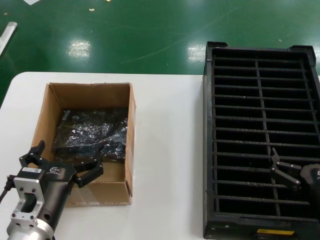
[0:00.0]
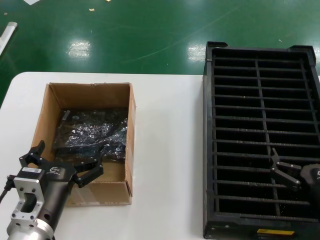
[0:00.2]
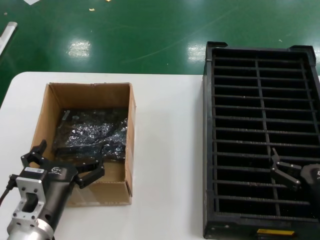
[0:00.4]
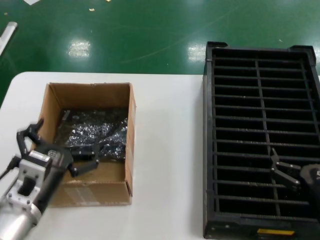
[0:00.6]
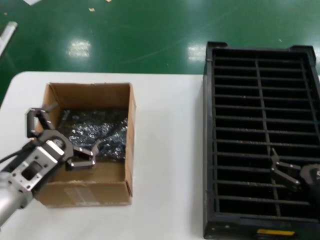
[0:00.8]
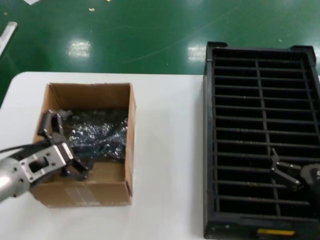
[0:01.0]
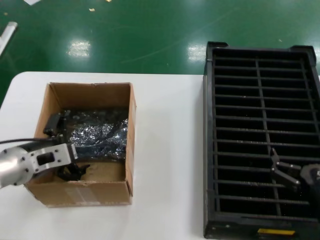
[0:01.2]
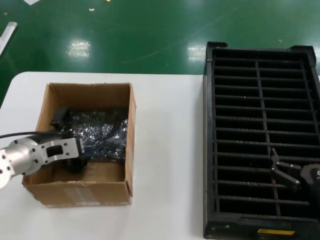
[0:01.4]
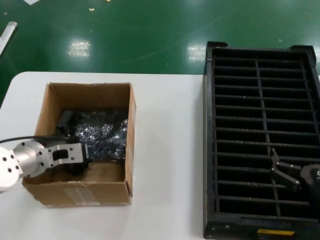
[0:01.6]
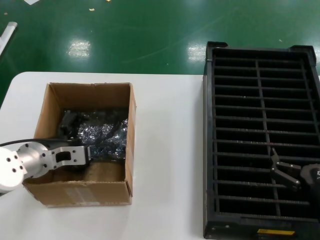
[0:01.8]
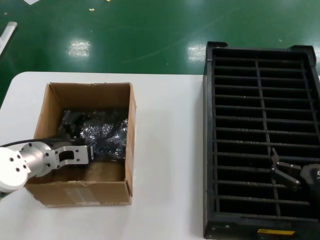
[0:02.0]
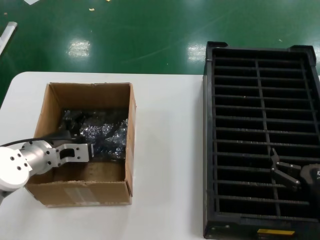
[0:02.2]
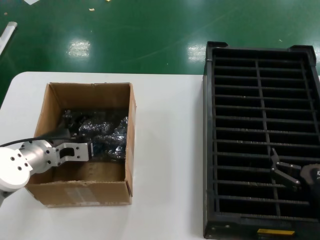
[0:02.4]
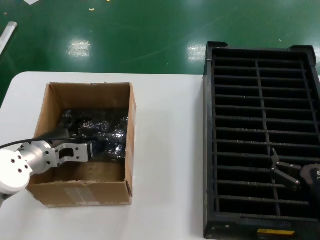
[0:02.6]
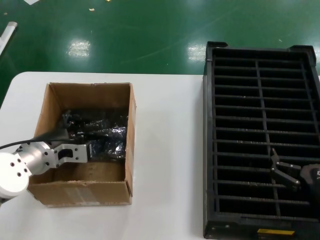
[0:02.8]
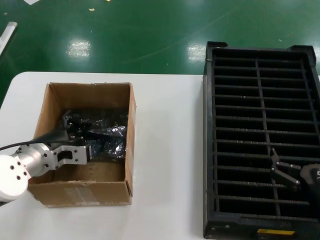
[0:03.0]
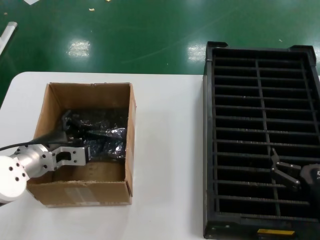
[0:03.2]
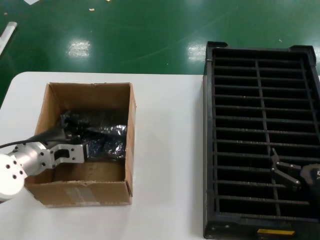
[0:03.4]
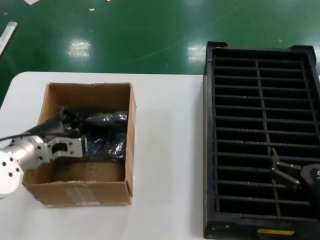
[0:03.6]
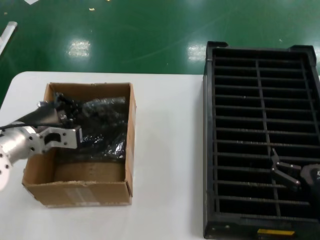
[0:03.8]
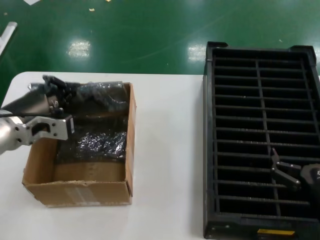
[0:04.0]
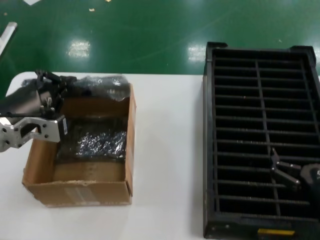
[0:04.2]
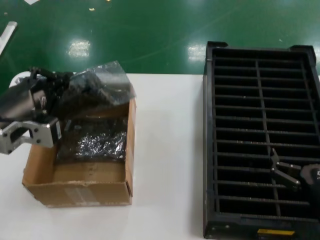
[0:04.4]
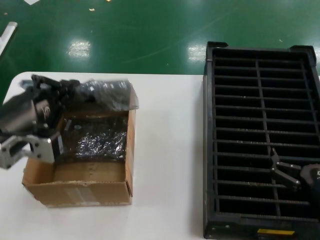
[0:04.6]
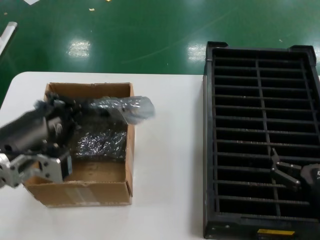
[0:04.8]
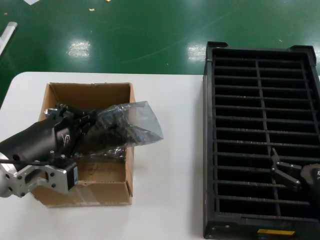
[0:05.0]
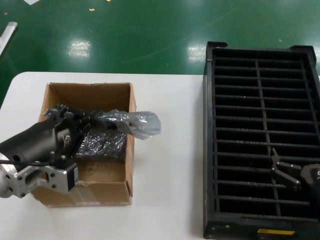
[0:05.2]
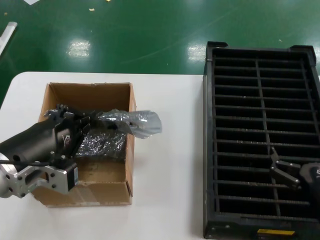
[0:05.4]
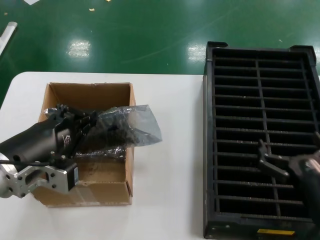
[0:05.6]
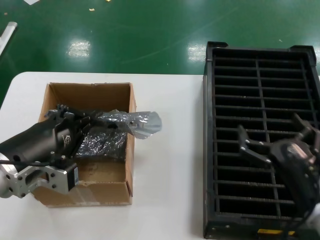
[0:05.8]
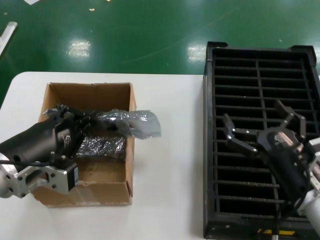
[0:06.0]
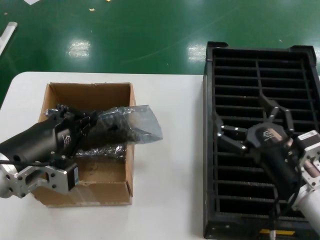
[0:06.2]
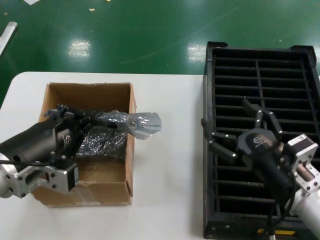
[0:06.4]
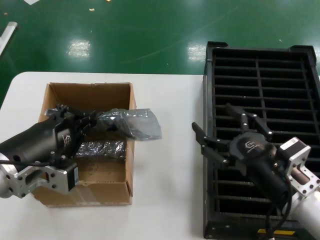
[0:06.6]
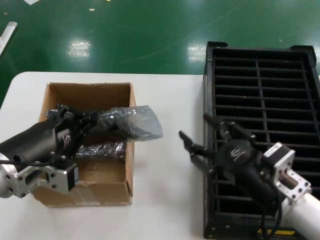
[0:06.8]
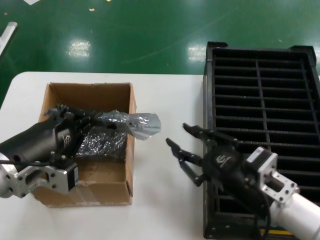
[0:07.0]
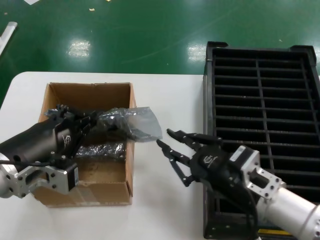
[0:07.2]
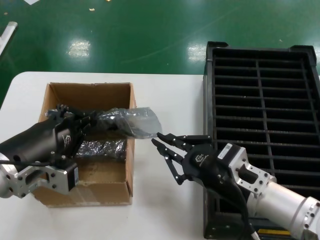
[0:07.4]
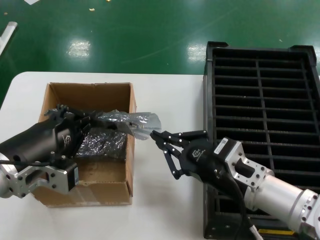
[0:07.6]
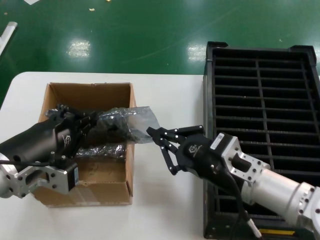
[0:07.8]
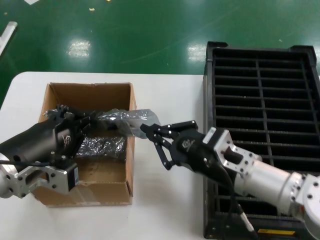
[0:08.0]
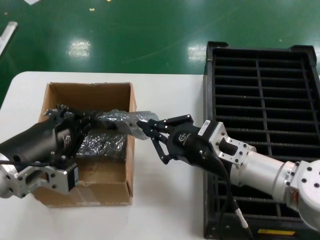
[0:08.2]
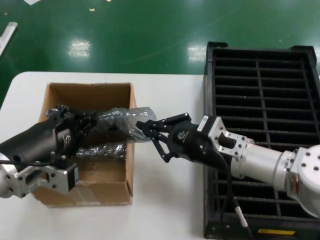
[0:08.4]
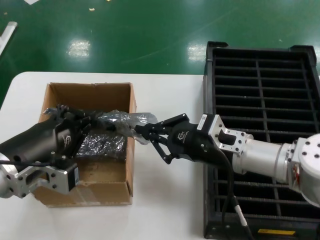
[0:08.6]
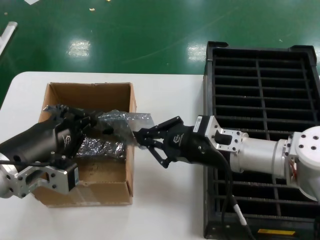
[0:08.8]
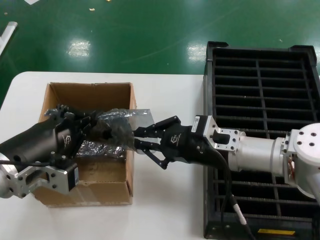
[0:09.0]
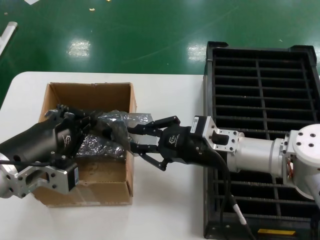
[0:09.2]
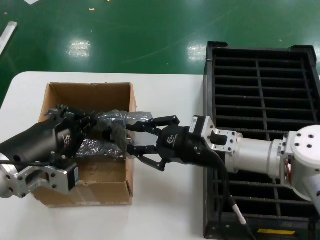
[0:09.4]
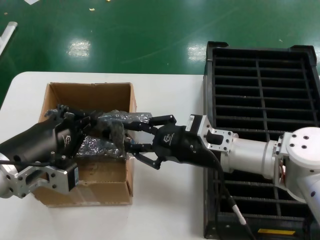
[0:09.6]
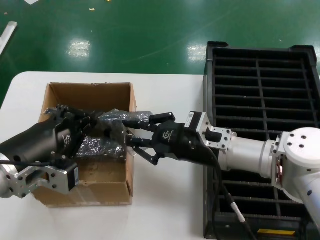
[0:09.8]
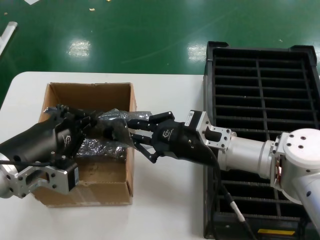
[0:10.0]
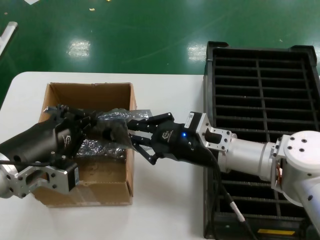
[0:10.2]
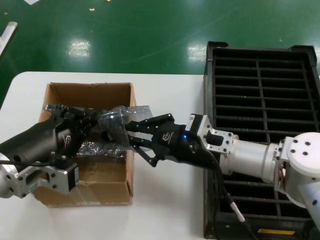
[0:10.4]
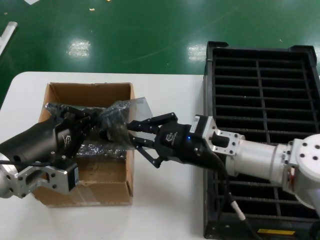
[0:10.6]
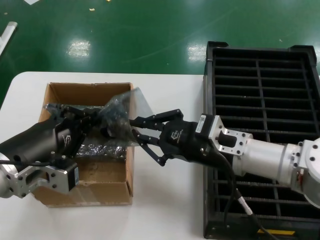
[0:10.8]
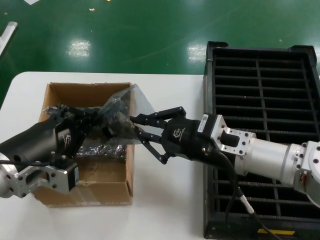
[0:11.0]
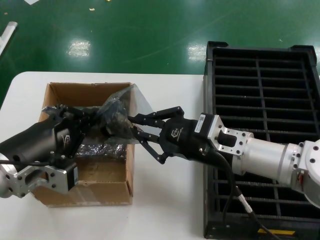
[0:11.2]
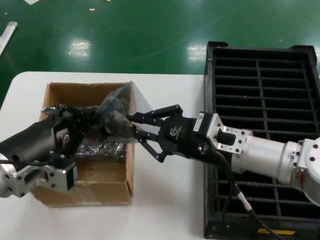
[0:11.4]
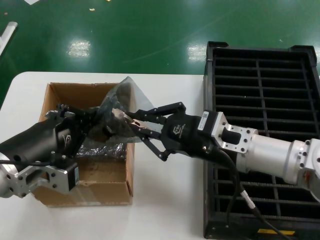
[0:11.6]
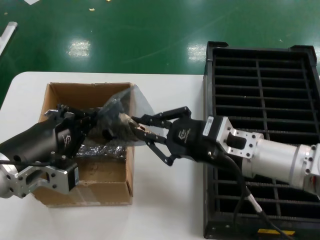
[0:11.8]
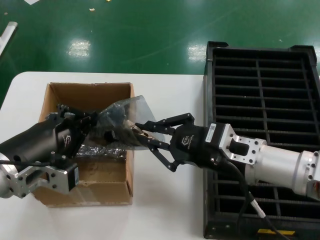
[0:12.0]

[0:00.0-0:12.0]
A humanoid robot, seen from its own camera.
Task of the whole recording: take out graphics card from box remove packaging put into black container.
Step, 0:00.0 to 0:03.0: Grasp the bag.
Step, 0:03.4 to 0:05.2: Lift the bag.
0:00.0 to 0:01.6: The left hand travels forward, to the left and upward by roughly 20 cm.
0:01.6 to 0:03.0: The hands make only small movements.
0:03.0 to 0:04.4: The left hand heads upward and backward, covering about 15 cm.
0:04.4 to 0:06.0: The right hand ends up about 5 cm from where it was. Meanwhile the left hand ends up some 5 cm from where it was.
0:06.0 to 0:07.6: The right hand is displaced to the left by approximately 5 cm.
0:07.6 to 0:09.0: The right hand goes some 10 cm forward.
0:09.0 to 0:10.4: The hands move only a little.
0:10.4 to 0:12.0: The right hand changes place by some 5 cm.

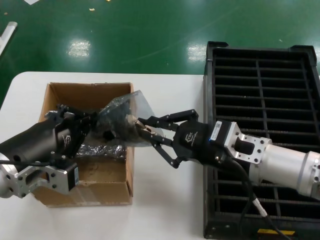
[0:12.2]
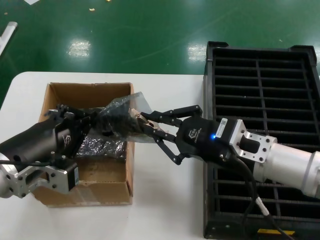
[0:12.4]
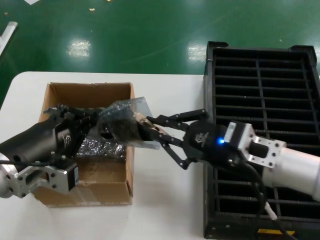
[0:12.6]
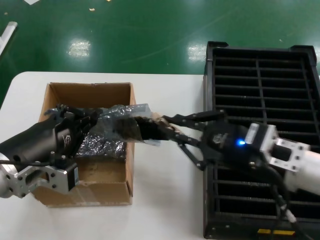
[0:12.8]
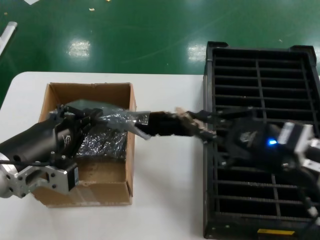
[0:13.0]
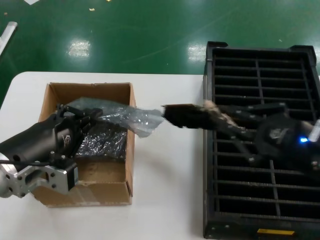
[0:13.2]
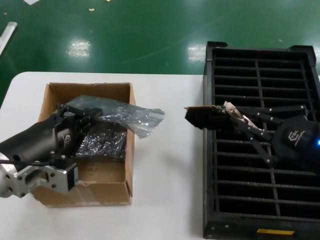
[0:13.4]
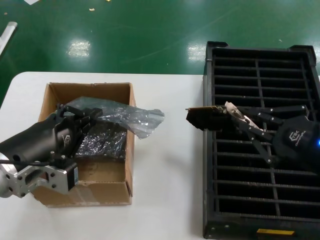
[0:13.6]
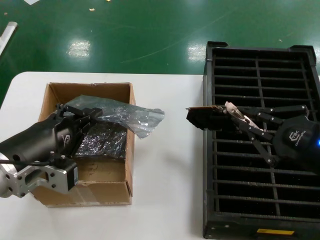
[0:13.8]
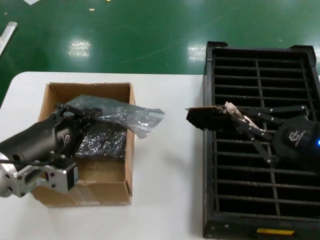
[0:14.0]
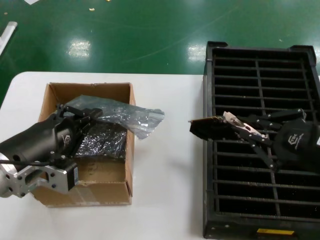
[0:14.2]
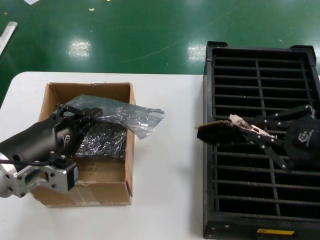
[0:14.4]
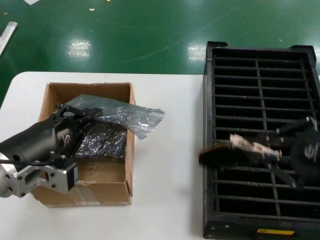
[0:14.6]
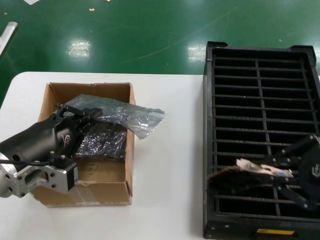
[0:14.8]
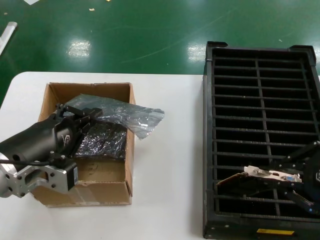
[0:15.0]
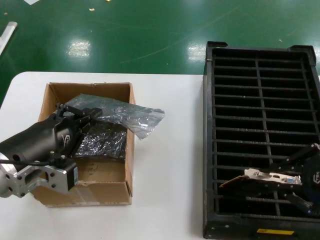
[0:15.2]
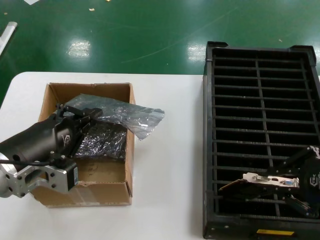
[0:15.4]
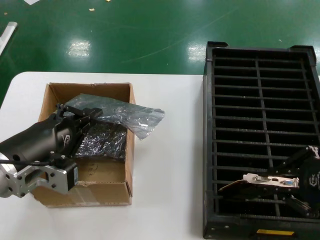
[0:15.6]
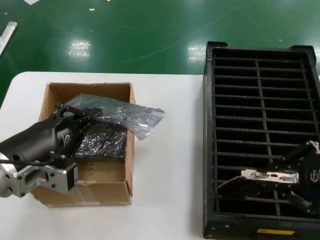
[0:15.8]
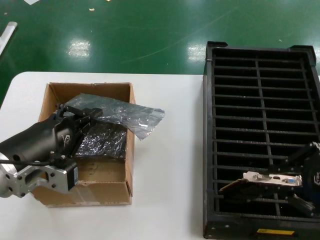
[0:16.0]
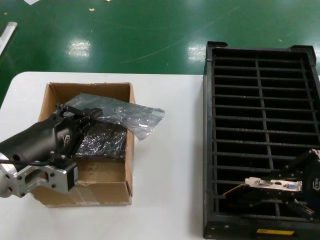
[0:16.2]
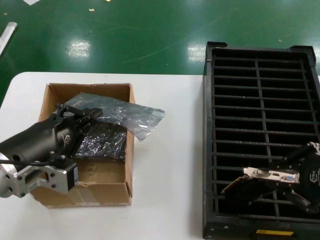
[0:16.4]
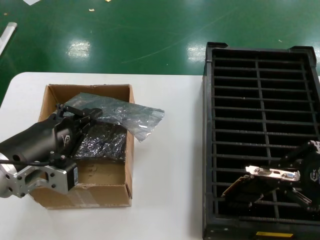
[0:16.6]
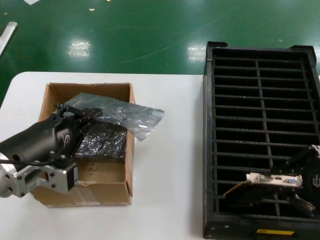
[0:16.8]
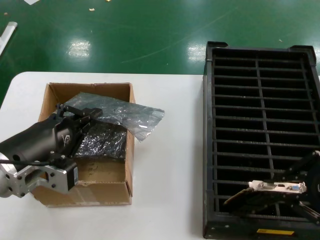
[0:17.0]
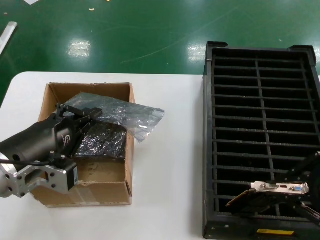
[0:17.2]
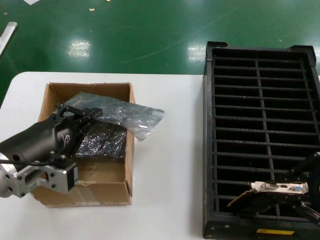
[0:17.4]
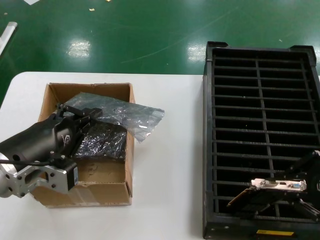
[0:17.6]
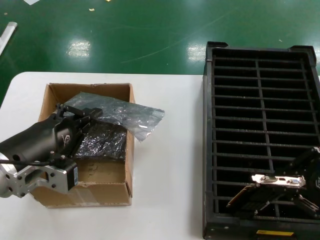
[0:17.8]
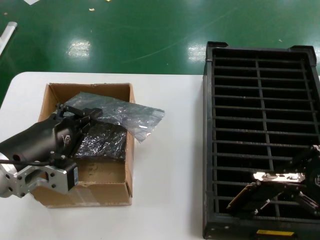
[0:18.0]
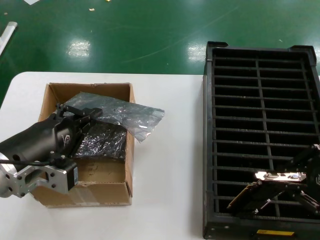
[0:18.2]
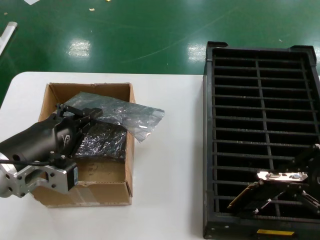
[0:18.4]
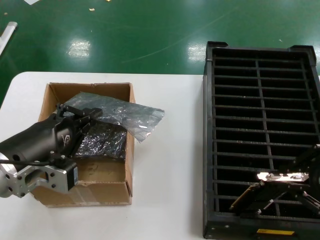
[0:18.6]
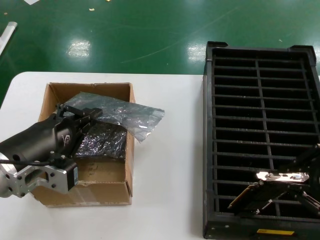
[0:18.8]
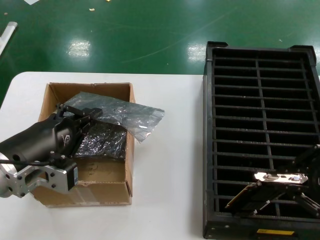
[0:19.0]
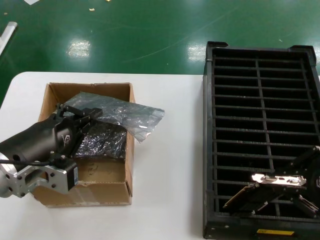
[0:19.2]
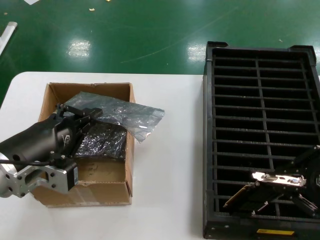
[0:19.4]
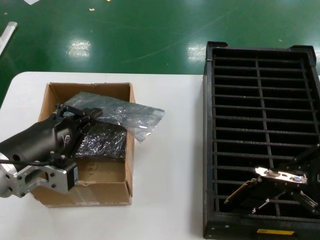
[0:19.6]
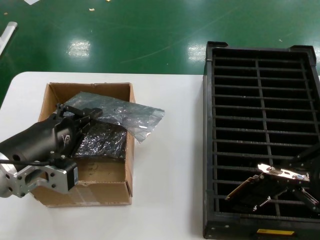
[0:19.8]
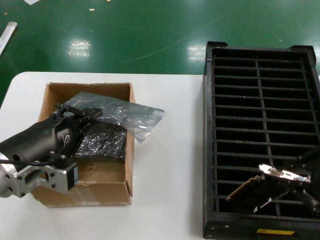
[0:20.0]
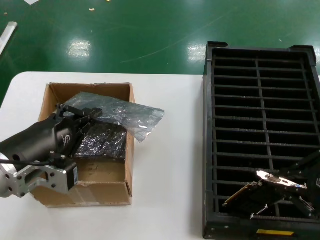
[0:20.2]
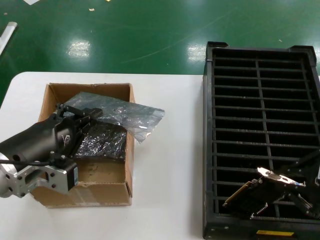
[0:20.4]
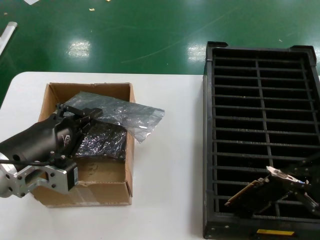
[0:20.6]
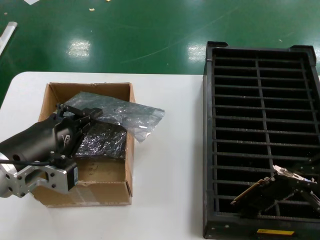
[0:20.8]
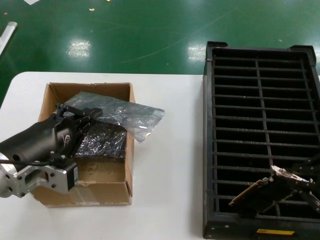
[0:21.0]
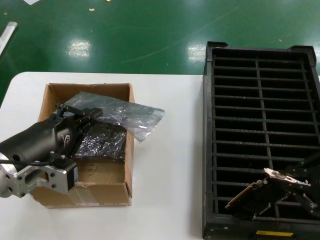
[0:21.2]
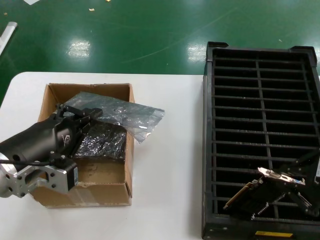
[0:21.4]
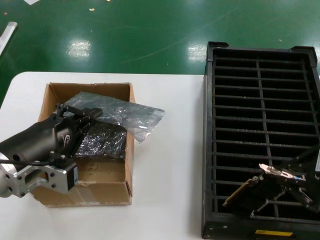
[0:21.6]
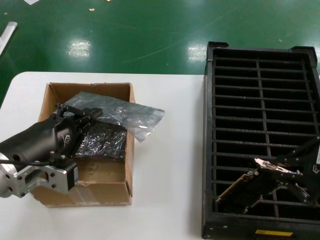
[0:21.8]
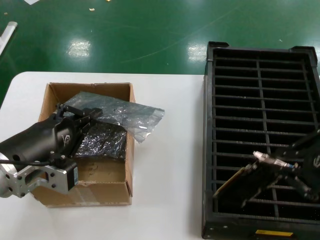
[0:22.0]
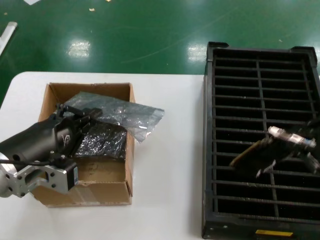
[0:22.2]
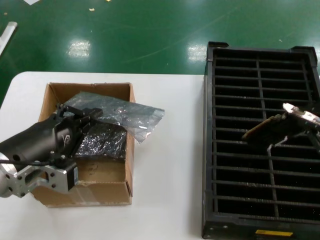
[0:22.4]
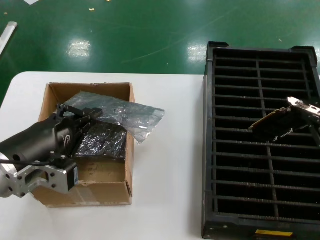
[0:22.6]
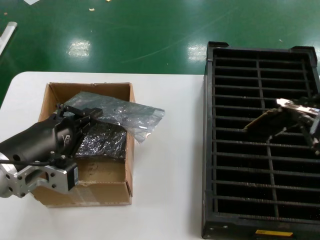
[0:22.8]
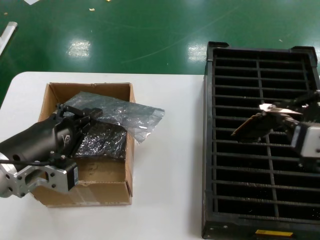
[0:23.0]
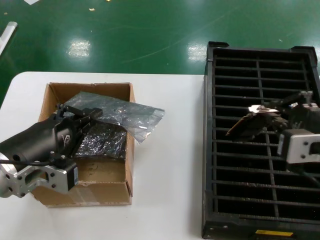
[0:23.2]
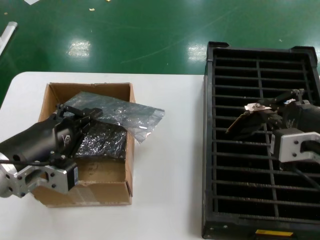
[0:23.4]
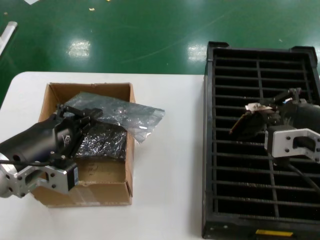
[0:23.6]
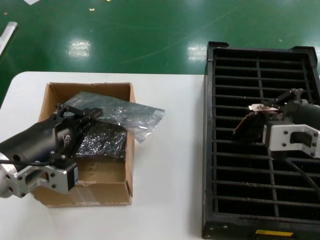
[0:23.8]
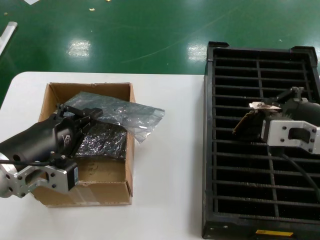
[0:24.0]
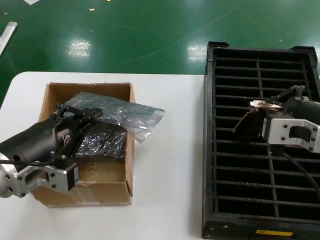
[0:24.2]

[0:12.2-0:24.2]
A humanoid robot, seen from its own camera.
Task of the whole recording: take out graphics card from box remove packaging put into black container.
0:12.2 to 0:13.8: The right hand goes about 15 cm to the right and backward.
0:13.8 to 0:15.2: The right hand travels upward by some 5 cm.
0:15.2 to 0:21.2: There are only small adjustments of the hands.
0:22.6 to 0:24.2: The right hand shifts approximately 10 cm to the left and forward.
